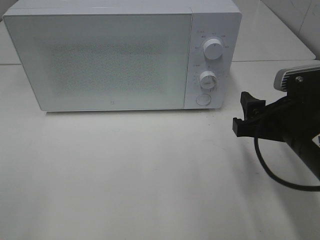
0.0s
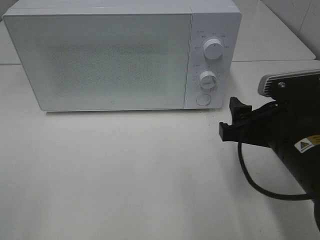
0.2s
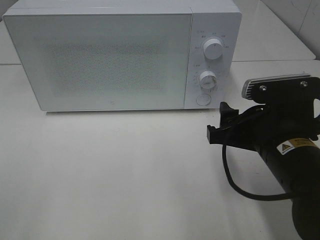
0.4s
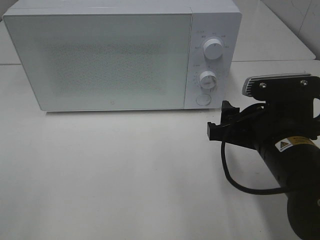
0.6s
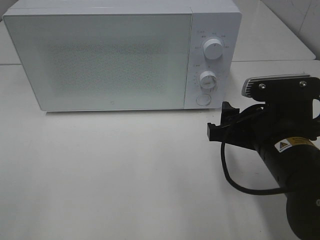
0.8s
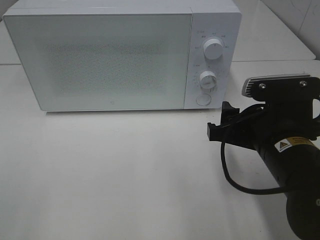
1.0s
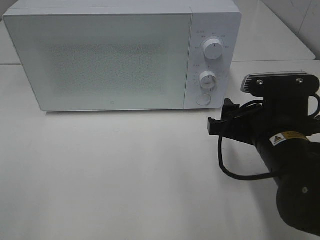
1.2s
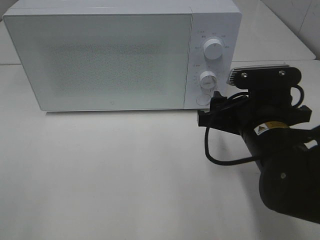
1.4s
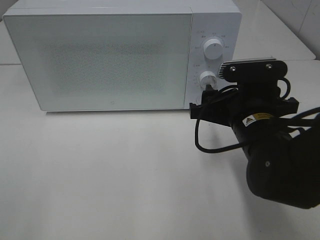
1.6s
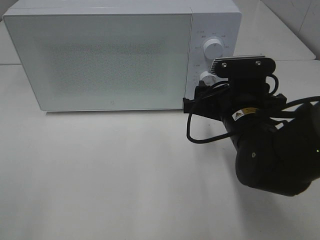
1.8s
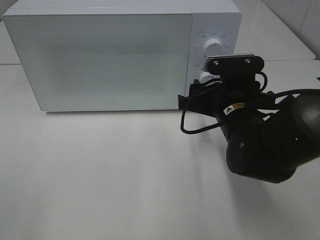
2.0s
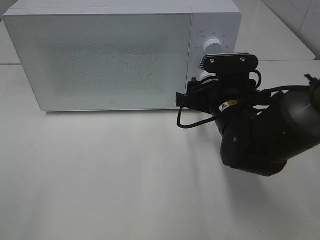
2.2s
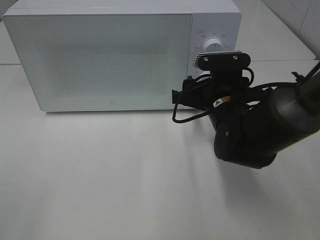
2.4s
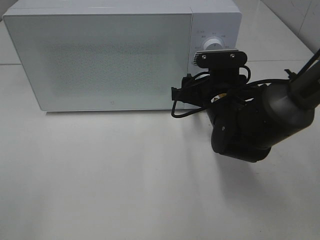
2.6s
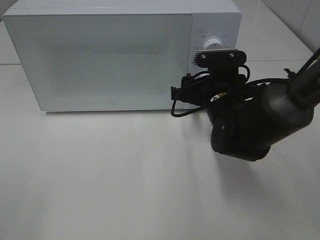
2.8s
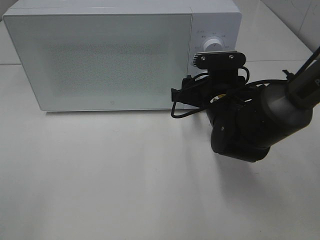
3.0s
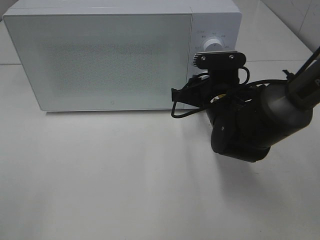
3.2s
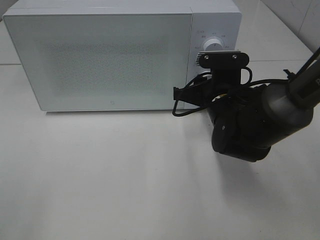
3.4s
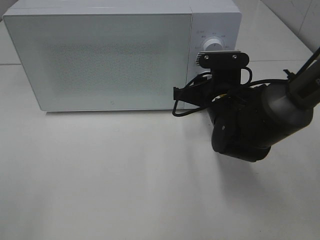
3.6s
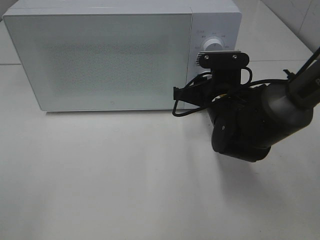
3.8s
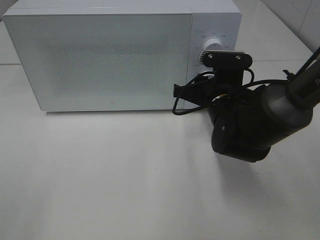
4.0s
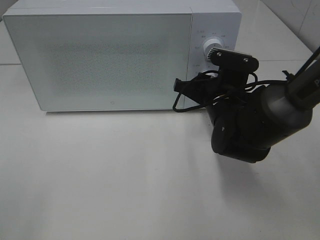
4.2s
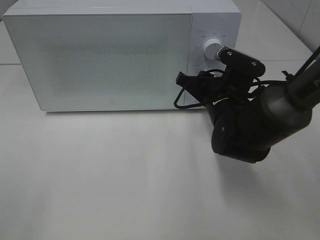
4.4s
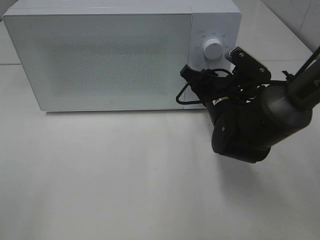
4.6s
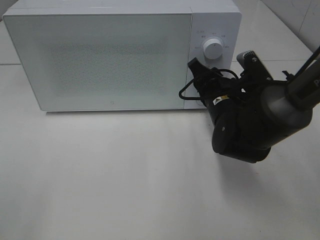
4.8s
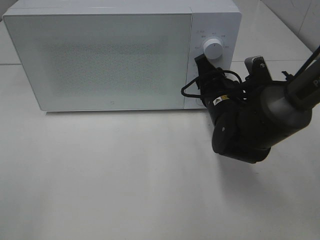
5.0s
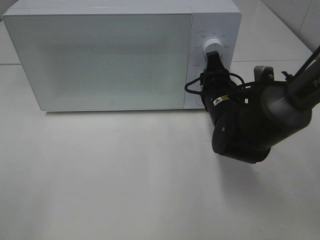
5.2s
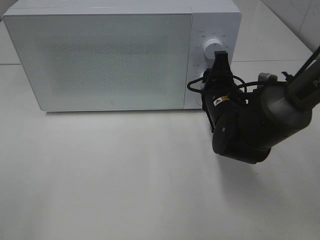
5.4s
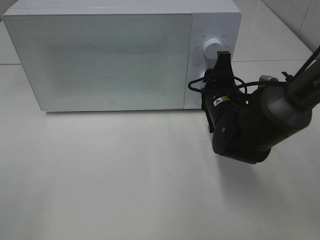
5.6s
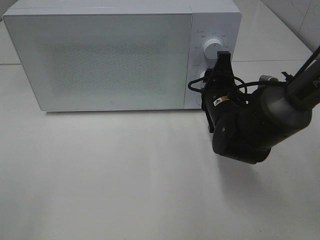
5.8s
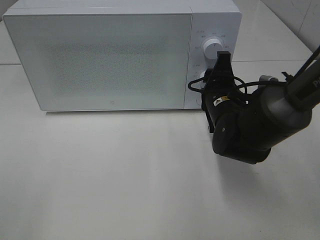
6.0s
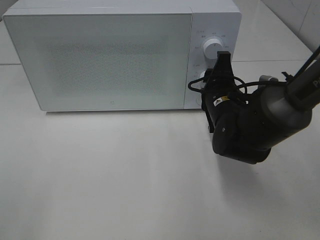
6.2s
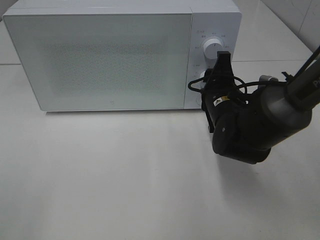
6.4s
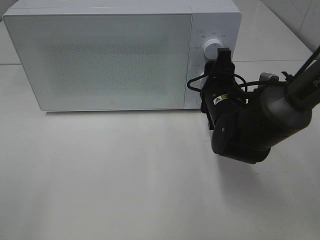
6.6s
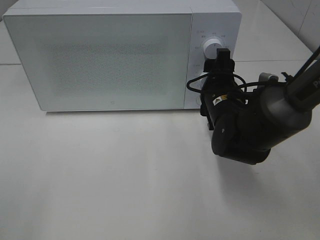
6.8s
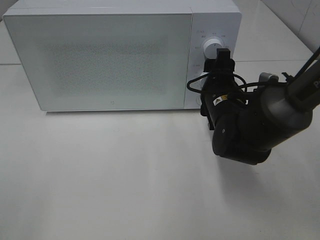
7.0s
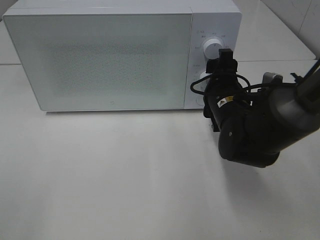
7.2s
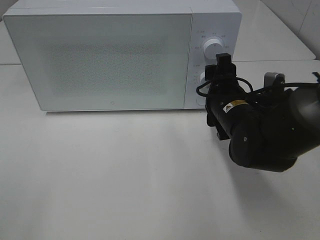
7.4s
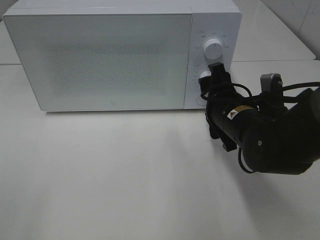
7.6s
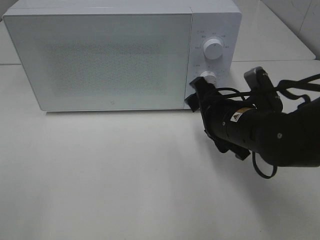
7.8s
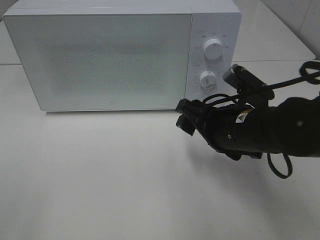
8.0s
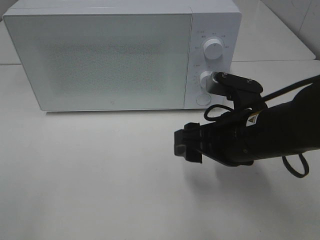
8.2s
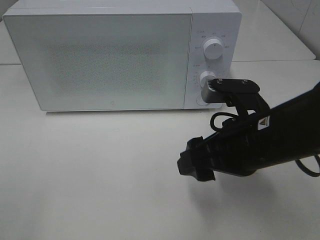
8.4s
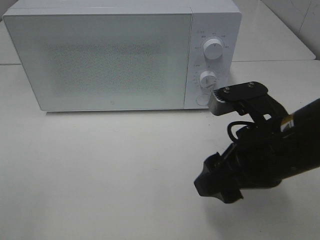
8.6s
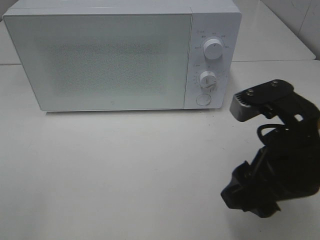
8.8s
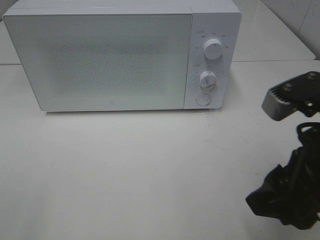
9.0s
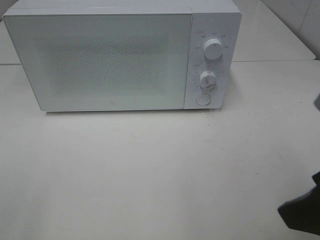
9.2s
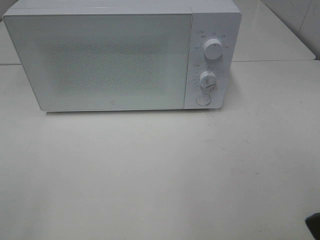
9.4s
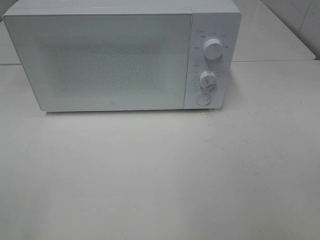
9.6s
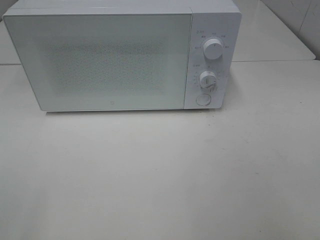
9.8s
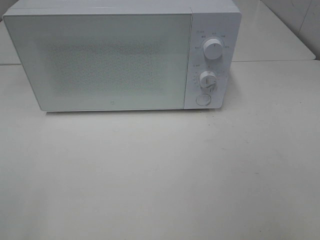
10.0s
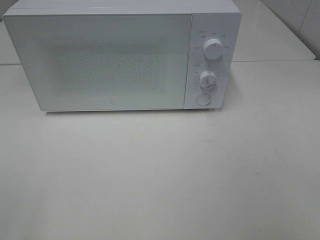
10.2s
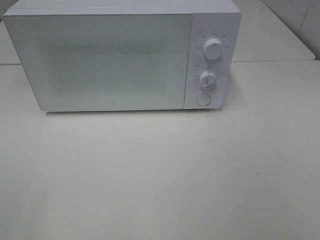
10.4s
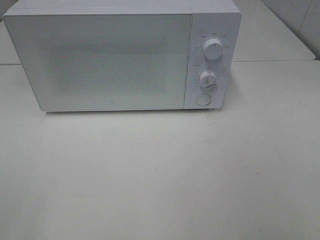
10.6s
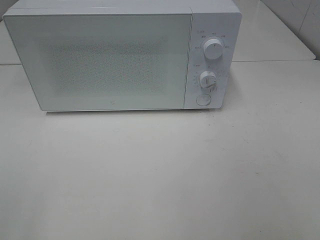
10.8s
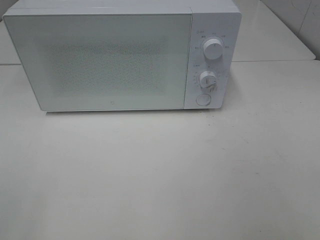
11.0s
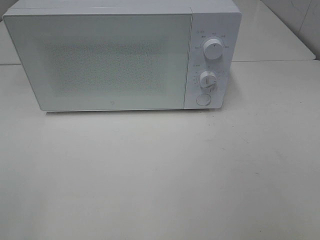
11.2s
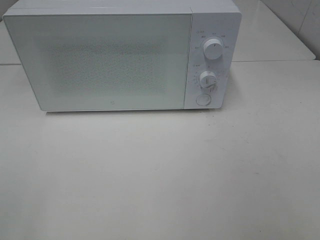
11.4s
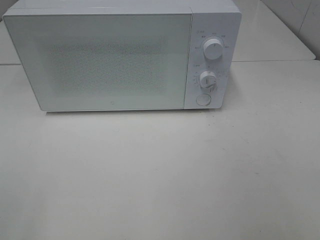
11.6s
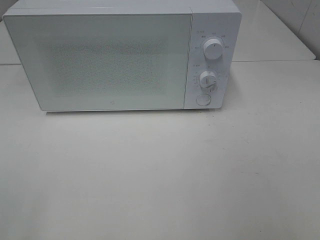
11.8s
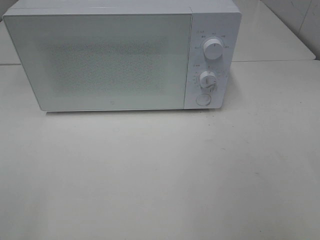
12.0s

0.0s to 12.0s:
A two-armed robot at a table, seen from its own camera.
Task of the whole recording: Heat Sandwich.
Step, 0.0s to 7.2s: Right hand: twist timer button.
0.0s to 1.6s: The right gripper goes about 10 cm to the left and forward.
1.6s to 3.0s: The right gripper heads forward, covering approximately 10 cm.
3.0s to 4.4s: The right gripper closes.
6.0s to 7.6s: The right gripper opens its fingers.
7.6s to 9.0s: The right gripper moves backward and upward, approximately 20 cm.
9.0s to 10.4s: The right gripper travels backward and to the right by approximately 20 cm.

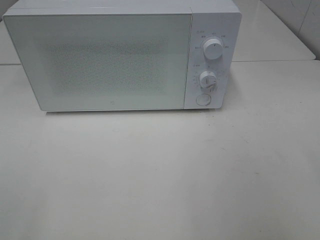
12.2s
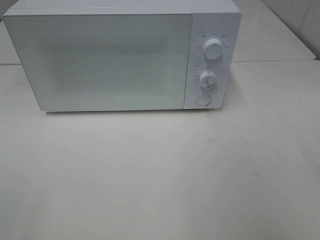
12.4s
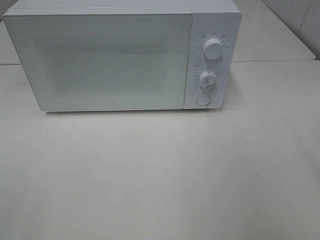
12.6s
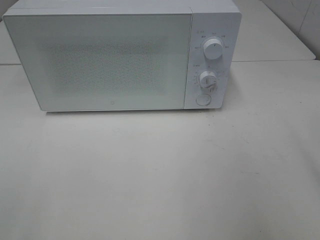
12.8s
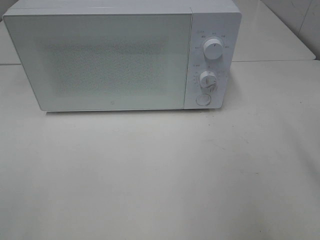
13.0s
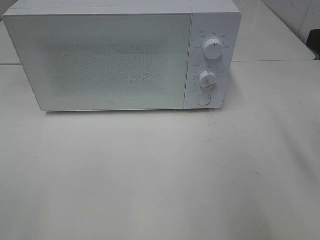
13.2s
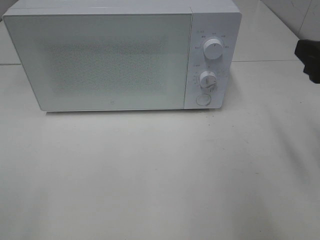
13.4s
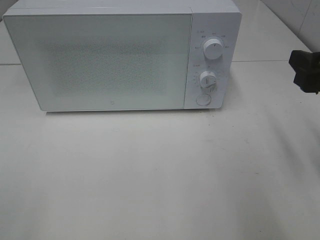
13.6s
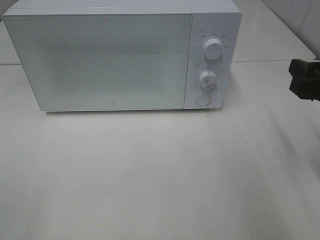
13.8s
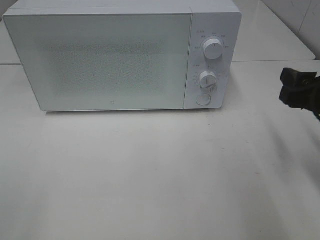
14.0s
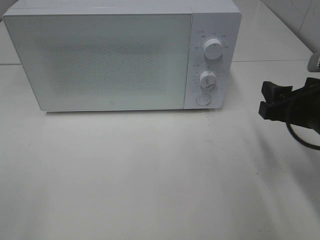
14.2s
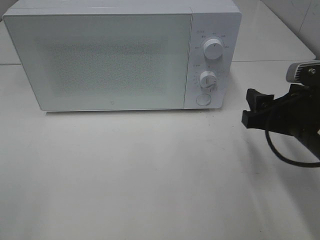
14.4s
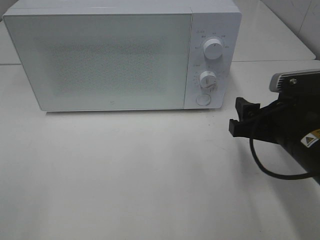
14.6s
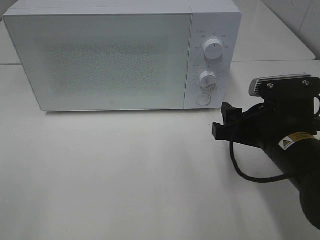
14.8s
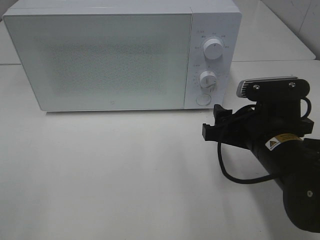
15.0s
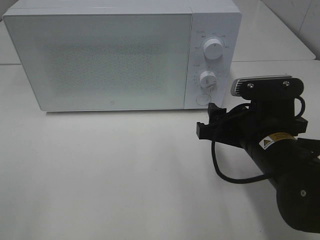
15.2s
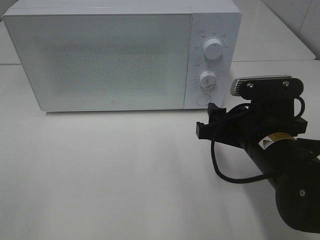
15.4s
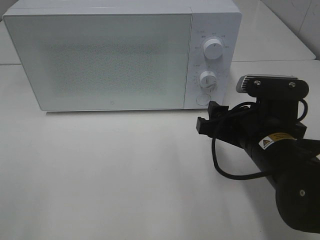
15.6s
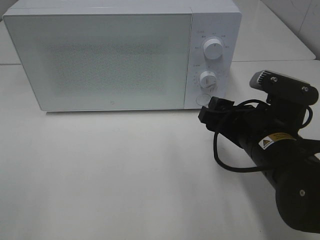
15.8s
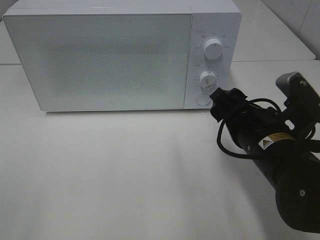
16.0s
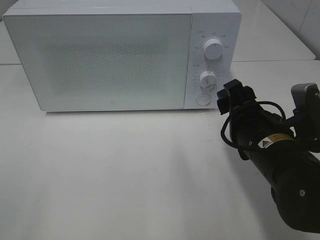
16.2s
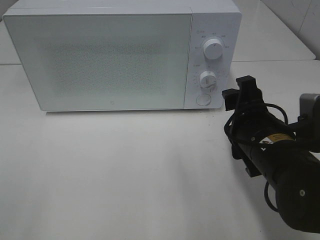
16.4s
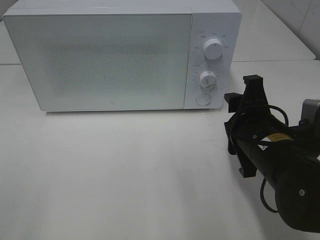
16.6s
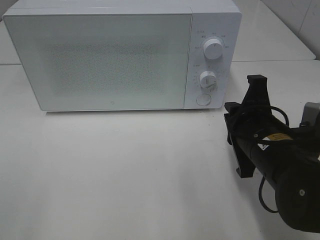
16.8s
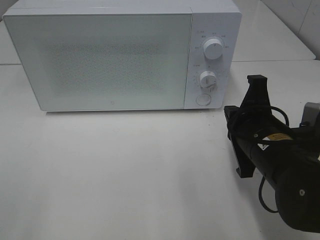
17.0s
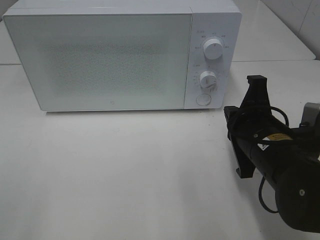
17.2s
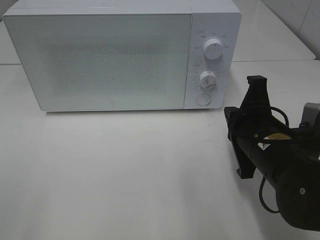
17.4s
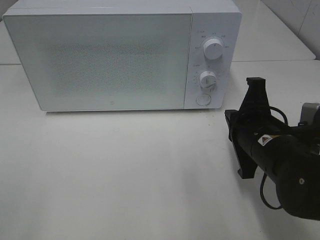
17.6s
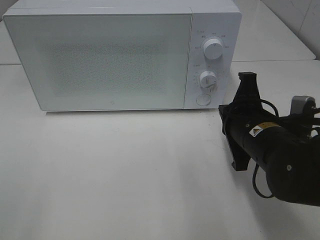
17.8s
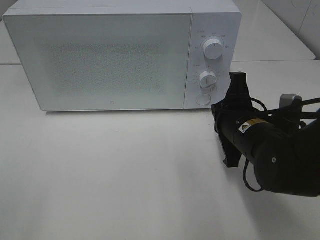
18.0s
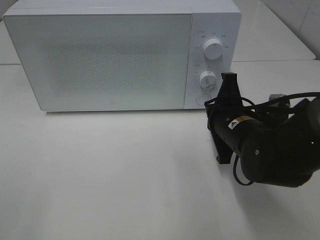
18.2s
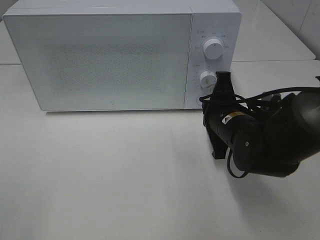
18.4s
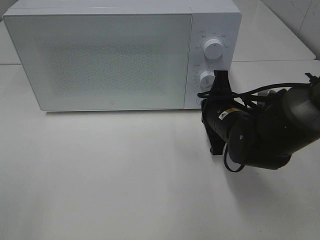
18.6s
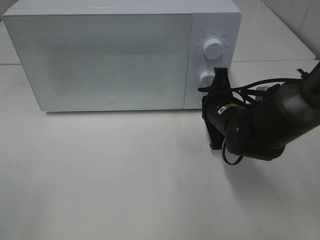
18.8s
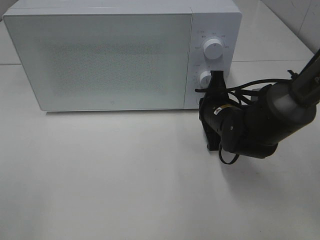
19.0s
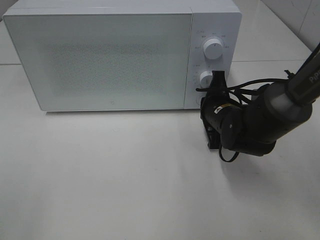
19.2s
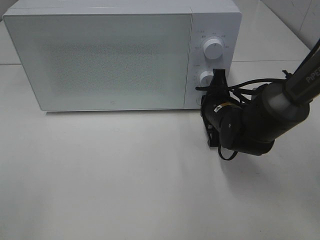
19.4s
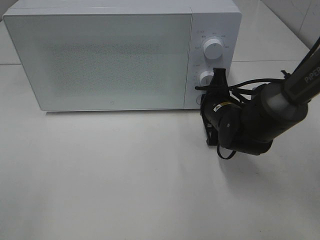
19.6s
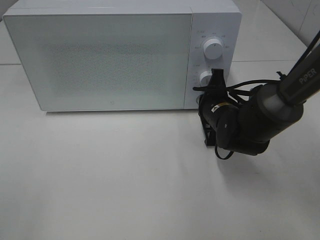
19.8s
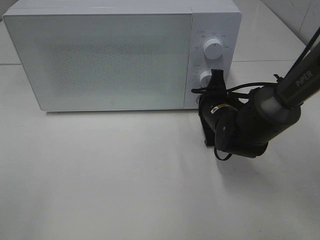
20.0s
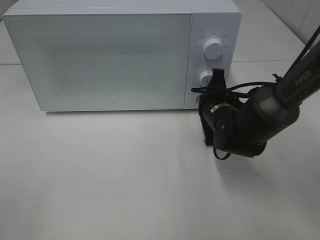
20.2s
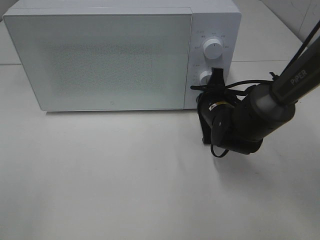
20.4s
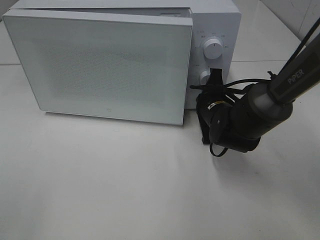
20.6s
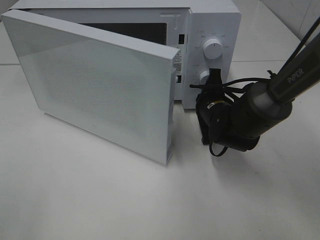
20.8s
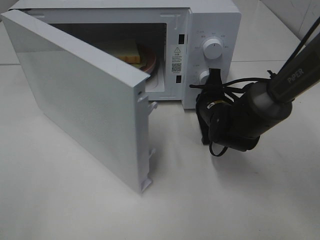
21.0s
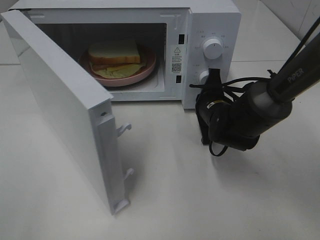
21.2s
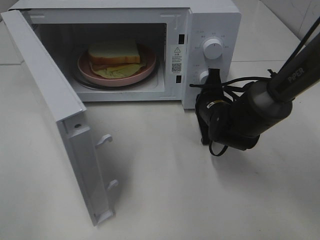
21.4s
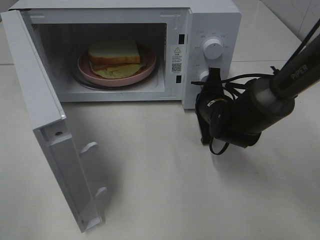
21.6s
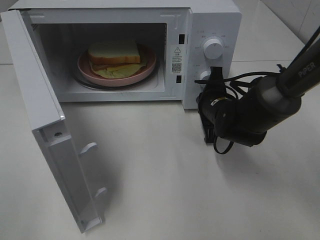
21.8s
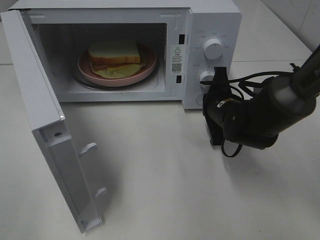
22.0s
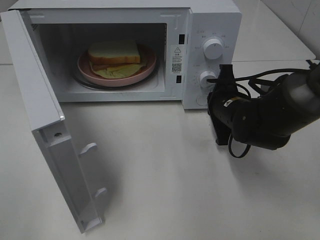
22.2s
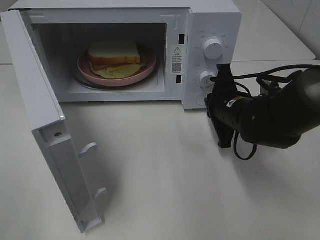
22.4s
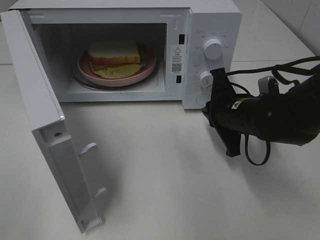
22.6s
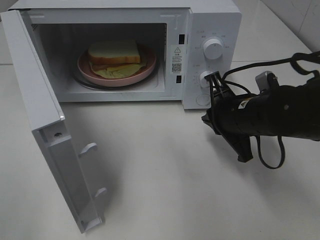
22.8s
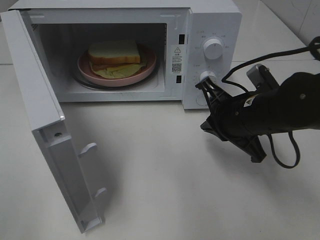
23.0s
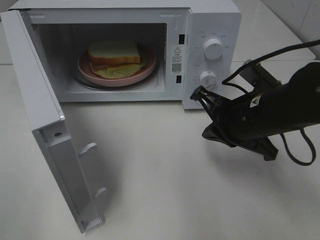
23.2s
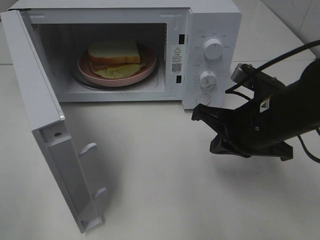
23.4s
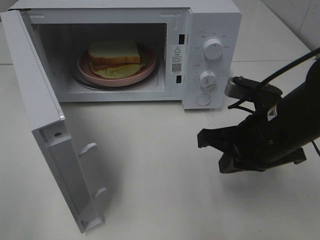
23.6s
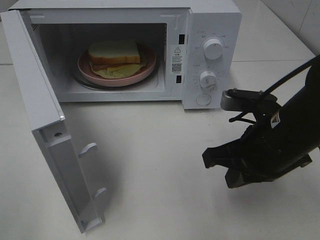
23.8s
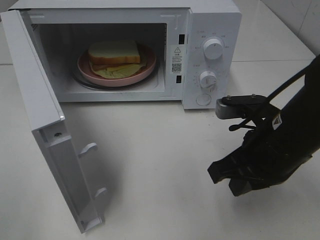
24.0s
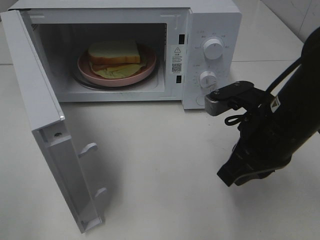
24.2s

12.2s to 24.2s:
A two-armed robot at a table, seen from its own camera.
Task of the whole recording: Heat Sandwich.
Step, 12.2s to 22.6s: Right hand: press the switch.
12.2s to 13.8s: The right gripper moves forward and downward, approximately 15 cm.
13.8s to 15.2s: The right gripper moves to the left and downward, approximately 15 cm.
16.6s to 18.2s: The right gripper moves forward, approximately 5 cm, and closes.
18.2s to 19.8s: The right gripper shifts some 10 cm forward.
21.2s to 22.6s: The right gripper heads backward, covering some 5 cm.
22.6s to 24.2s: The right gripper goes roughly 10 cm backward and upward.
